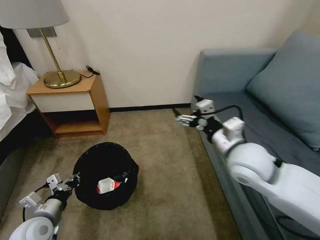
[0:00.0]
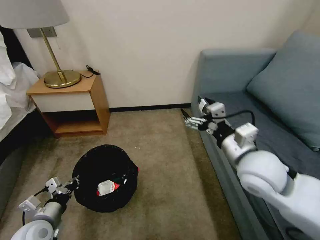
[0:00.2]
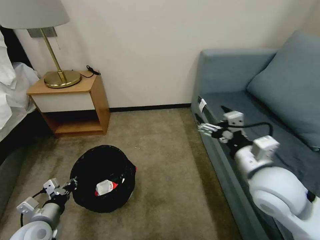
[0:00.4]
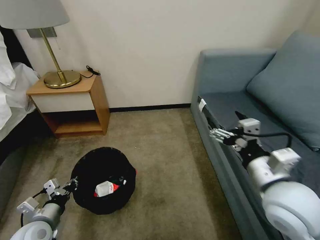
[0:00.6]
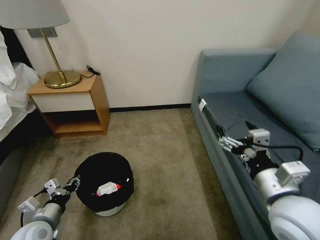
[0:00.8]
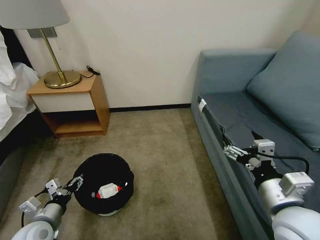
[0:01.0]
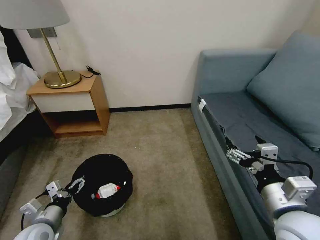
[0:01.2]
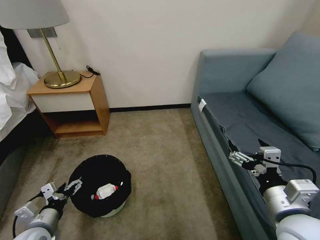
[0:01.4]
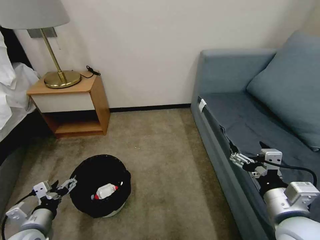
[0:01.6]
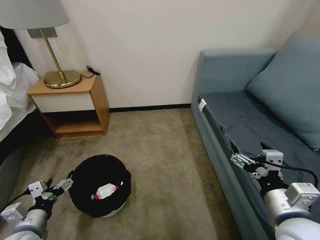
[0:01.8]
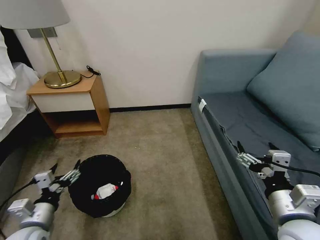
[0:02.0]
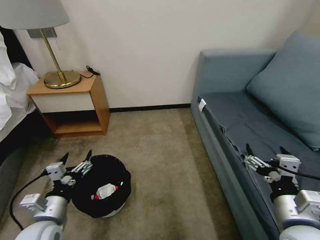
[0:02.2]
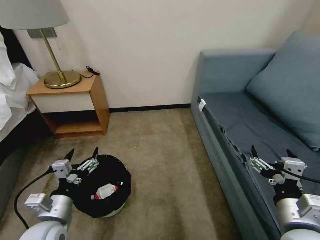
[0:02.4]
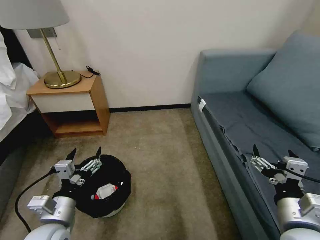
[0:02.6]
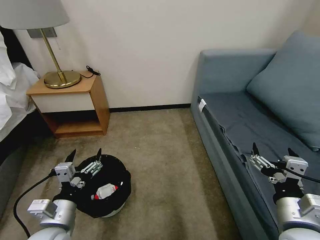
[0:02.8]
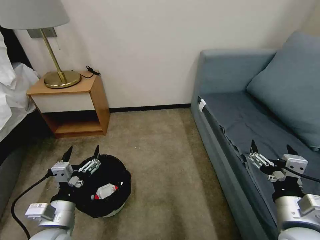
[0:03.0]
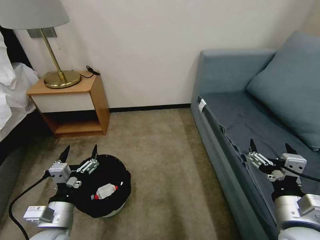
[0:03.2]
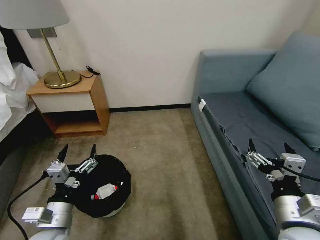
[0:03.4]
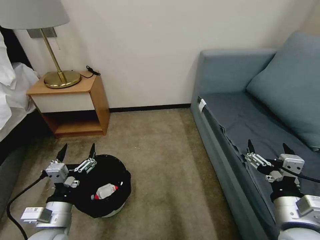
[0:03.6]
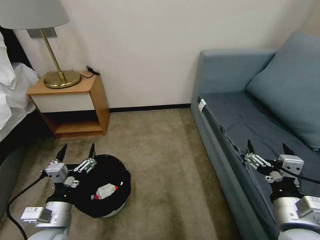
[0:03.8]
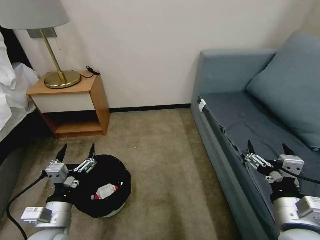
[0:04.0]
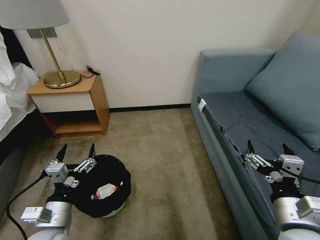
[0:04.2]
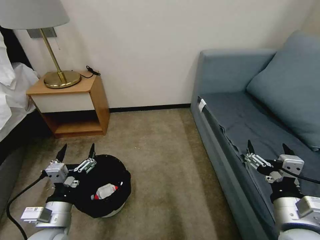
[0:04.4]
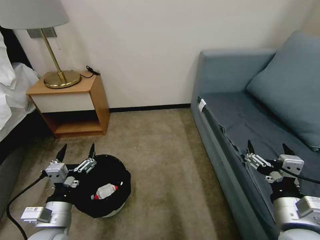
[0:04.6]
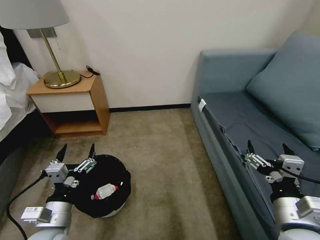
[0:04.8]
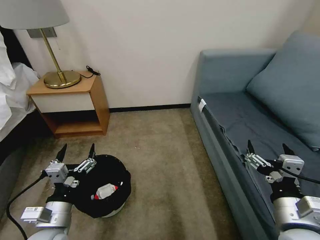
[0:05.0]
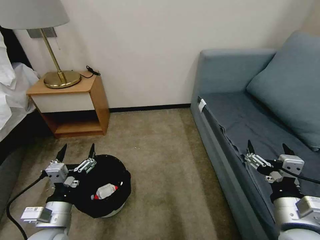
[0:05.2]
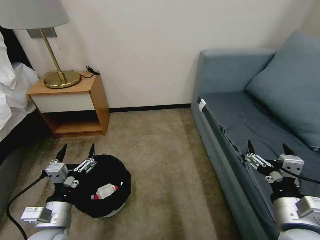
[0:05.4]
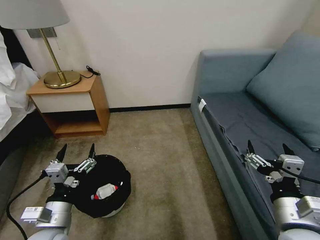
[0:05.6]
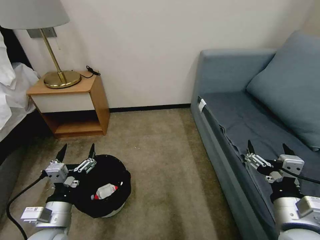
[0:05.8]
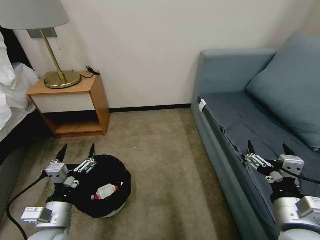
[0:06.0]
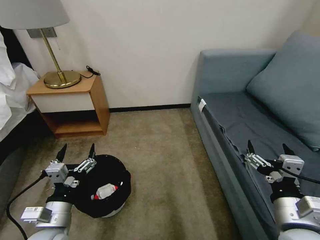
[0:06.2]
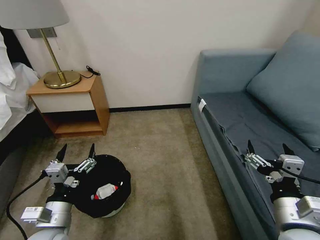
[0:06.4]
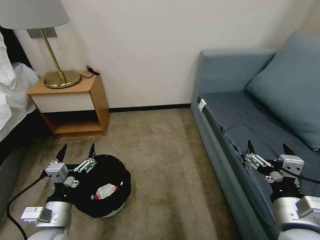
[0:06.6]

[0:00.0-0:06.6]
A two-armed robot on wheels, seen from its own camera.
Task of the whole recording: Pick up the trash bin, then pick up the garbage on the floor and place it into the trash bin.
0:00.0 to 0:01.6: The left gripper opens. The right gripper heads backward and to the right, covering about 15 cm.
0:01.6 to 0:03.2: The left gripper shifts roughly 10 cm to the right and upward.
0:03.2 to 0:06.6: The two grippers keep their place.

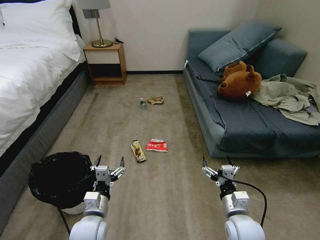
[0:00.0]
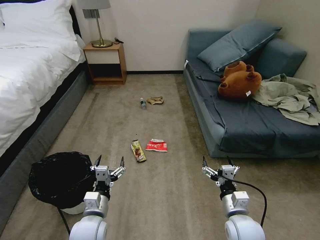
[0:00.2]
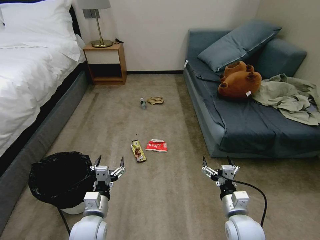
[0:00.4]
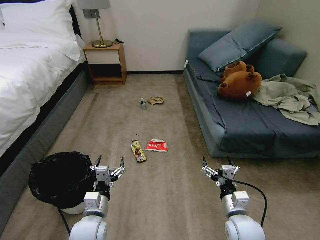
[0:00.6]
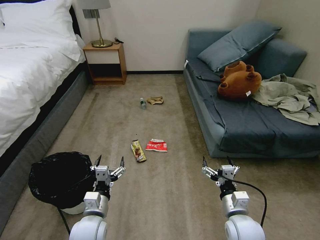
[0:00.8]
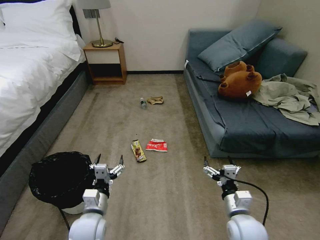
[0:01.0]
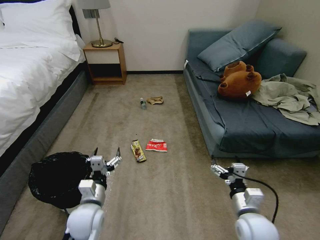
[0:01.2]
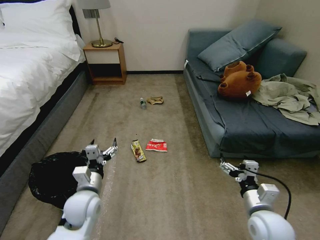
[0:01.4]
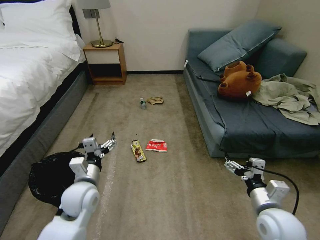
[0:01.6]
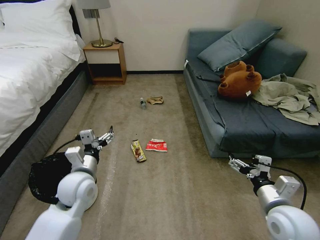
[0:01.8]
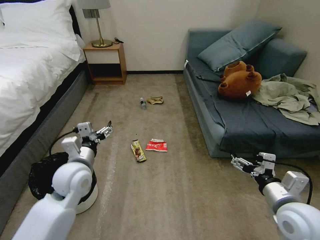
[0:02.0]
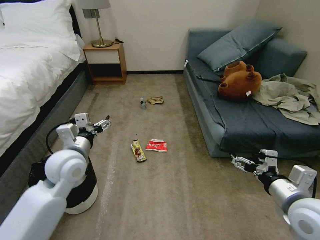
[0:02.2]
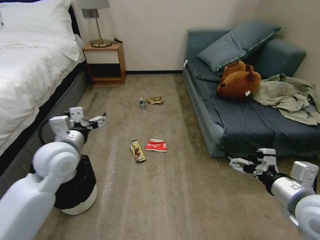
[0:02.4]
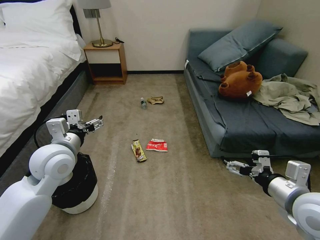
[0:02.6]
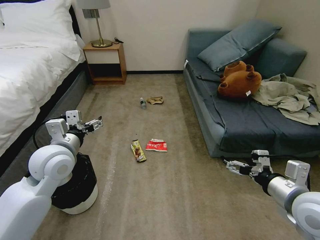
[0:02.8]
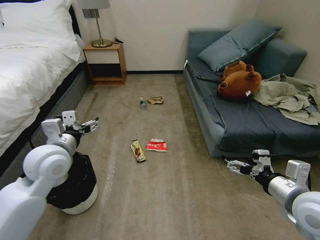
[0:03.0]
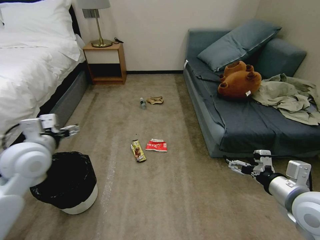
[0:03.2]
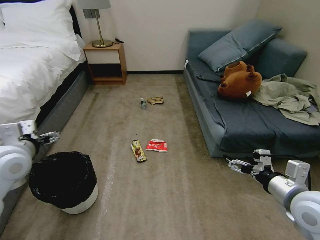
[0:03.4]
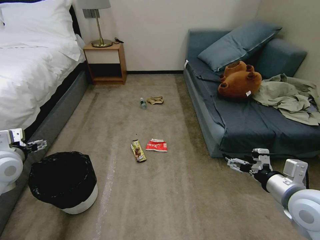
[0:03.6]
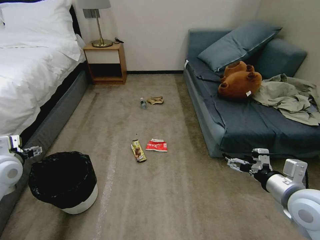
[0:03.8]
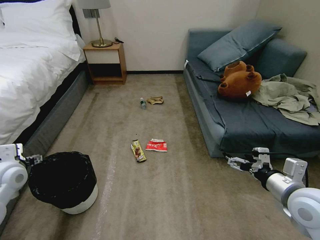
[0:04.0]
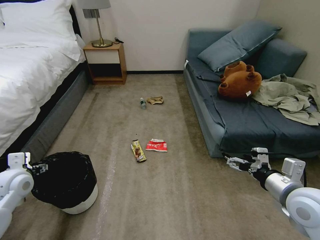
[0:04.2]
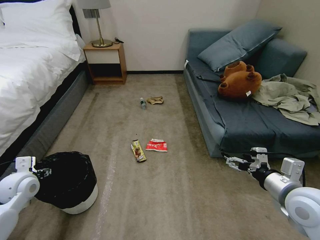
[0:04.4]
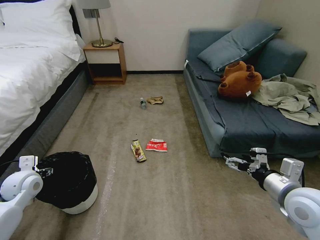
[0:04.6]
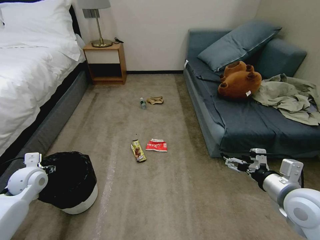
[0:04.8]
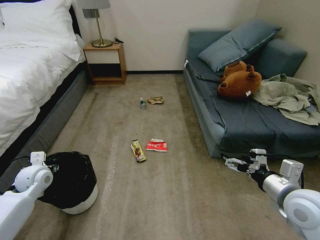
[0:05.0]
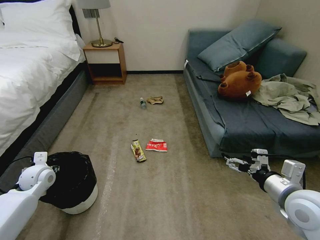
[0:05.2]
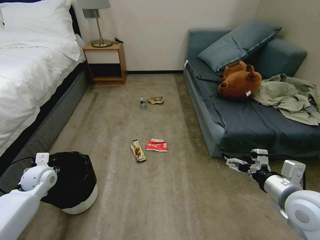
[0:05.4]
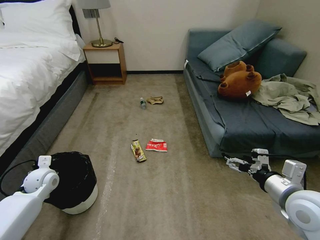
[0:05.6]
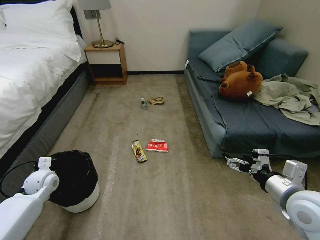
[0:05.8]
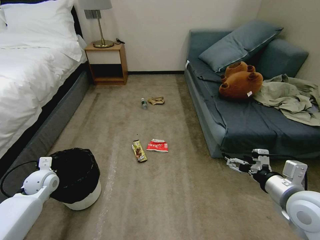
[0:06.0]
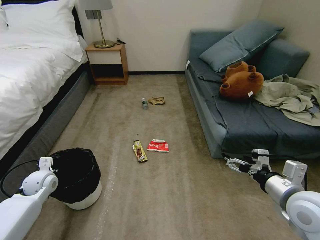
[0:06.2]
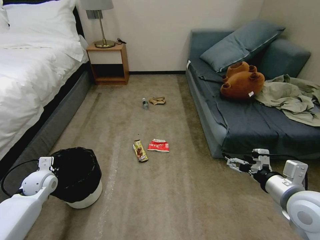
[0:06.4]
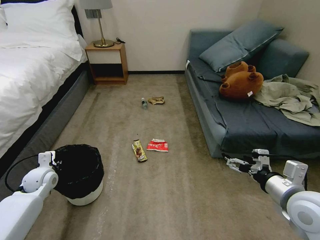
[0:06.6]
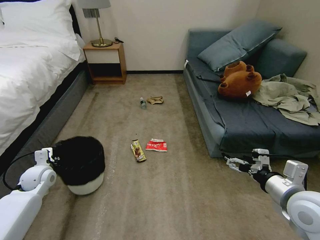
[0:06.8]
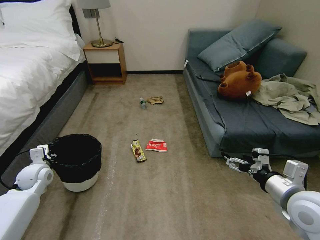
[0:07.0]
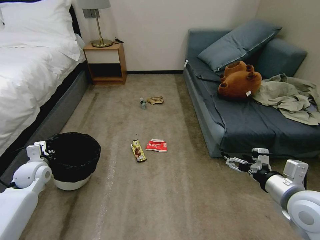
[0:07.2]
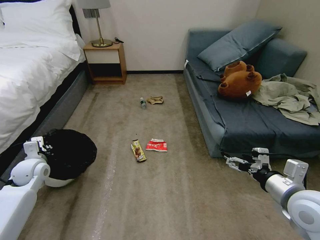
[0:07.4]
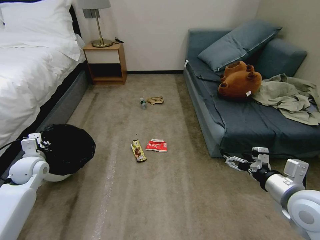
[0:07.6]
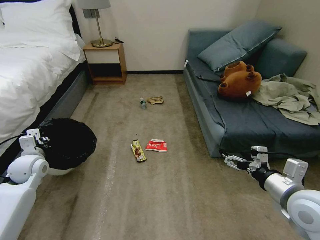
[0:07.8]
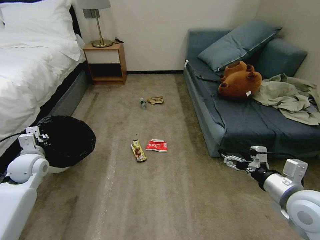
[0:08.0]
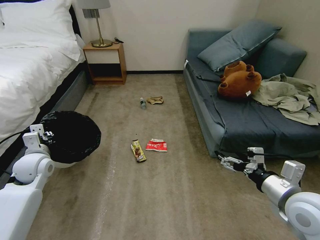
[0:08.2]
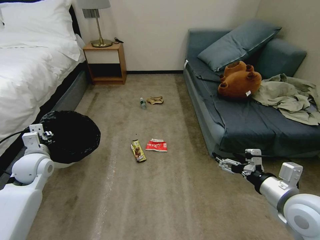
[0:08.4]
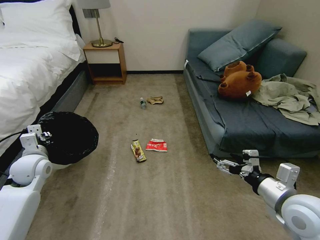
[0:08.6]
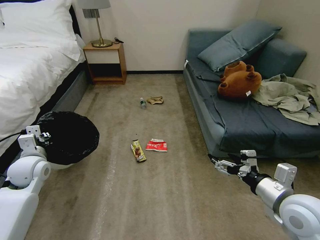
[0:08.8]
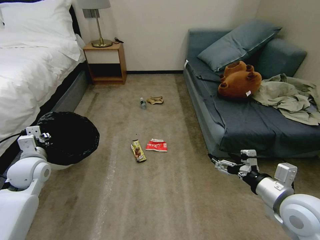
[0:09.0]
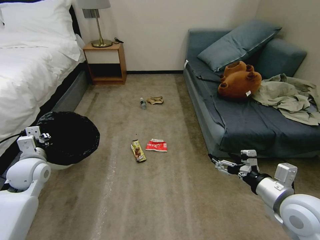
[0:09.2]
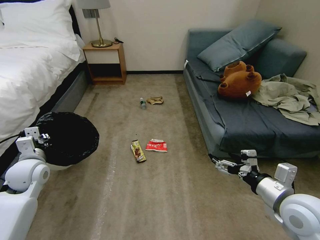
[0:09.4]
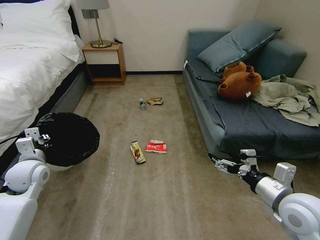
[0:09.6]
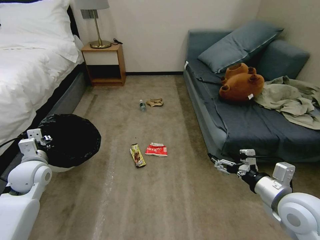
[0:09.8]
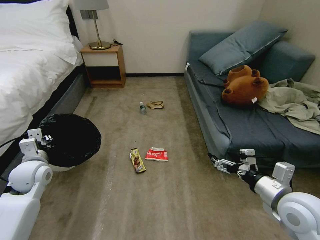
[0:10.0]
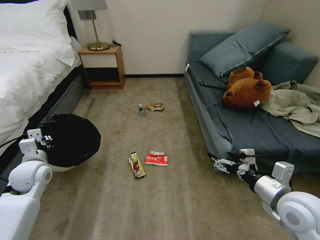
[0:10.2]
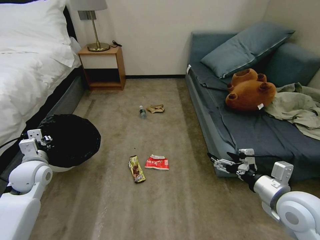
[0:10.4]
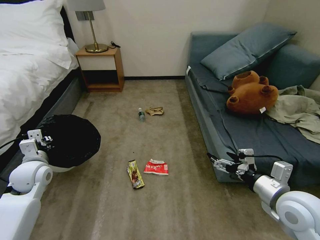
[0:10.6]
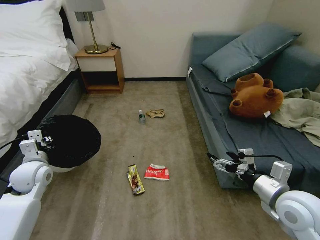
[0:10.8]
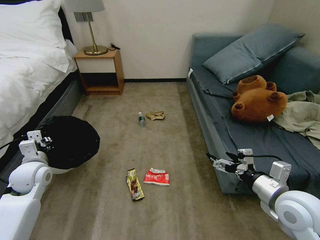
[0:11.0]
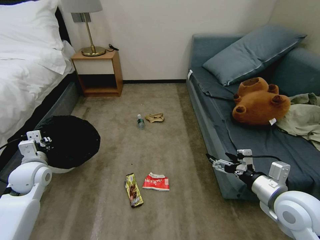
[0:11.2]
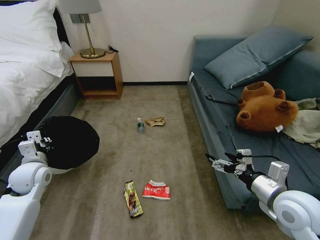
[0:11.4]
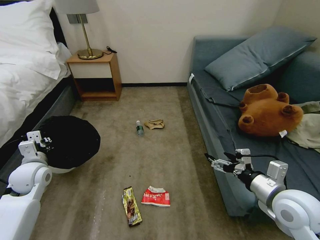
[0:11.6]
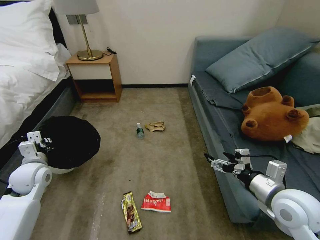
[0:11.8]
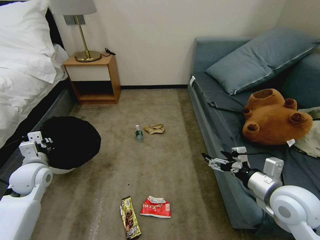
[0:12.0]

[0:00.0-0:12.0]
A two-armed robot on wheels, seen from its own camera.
Task of the whole recording: Pick up the trash bin, then pick up the garbage on the floor and place it into the trash bin.
0:01.6 to 0:03.0: Both grippers move upward, about 10 cm.
0:03.0 to 0:04.4: The left gripper heads to the left and downward, covering roughly 20 cm.
0:04.4 to 0:06.0: The left gripper travels downward by about 5 cm, and closes up.
0:06.0 to 0:07.6: The left gripper travels upward by about 5 cm, and closes.
0:07.6 to 0:09.0: The left gripper moves roughly 5 cm.

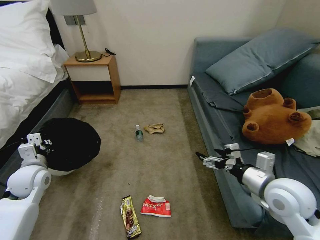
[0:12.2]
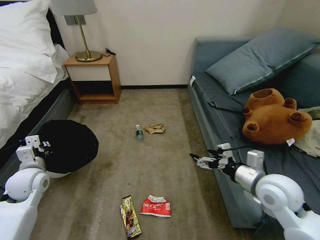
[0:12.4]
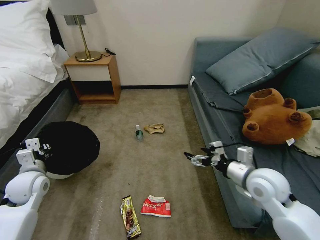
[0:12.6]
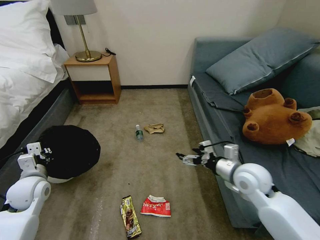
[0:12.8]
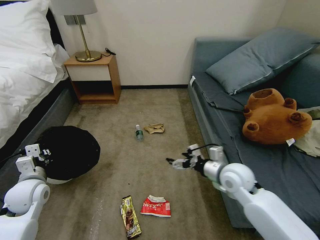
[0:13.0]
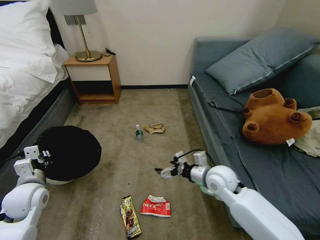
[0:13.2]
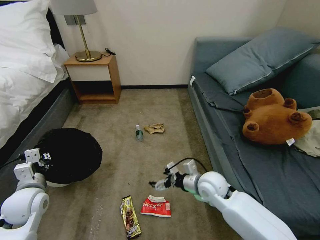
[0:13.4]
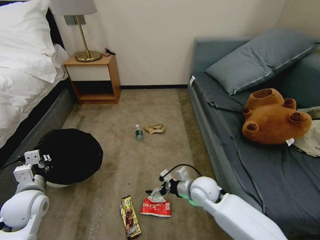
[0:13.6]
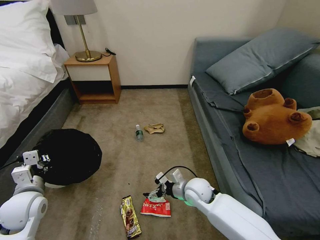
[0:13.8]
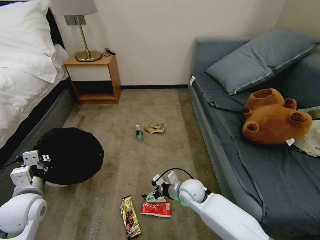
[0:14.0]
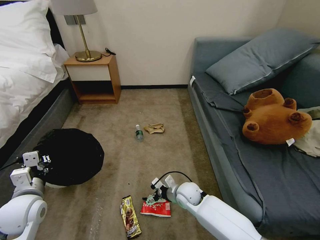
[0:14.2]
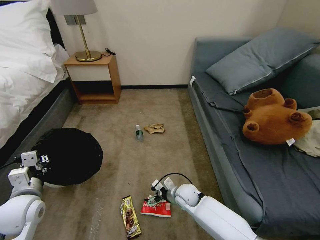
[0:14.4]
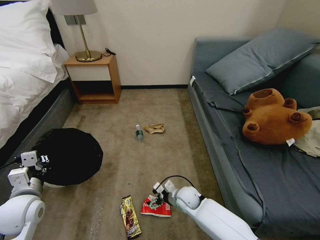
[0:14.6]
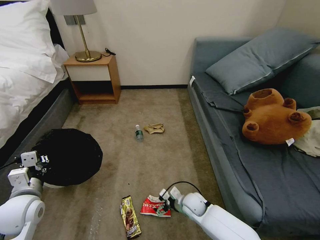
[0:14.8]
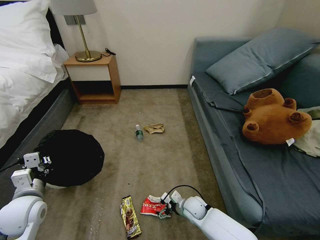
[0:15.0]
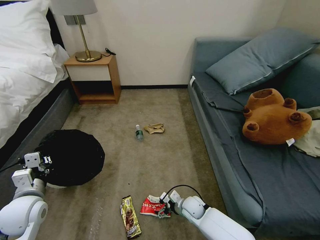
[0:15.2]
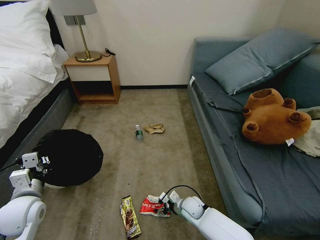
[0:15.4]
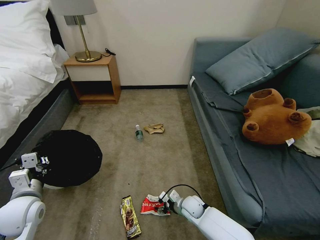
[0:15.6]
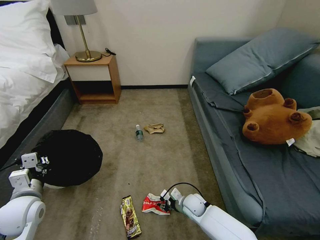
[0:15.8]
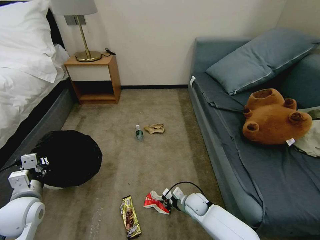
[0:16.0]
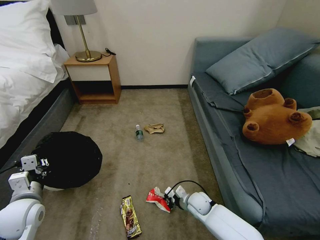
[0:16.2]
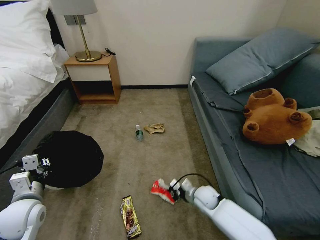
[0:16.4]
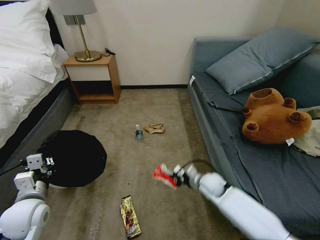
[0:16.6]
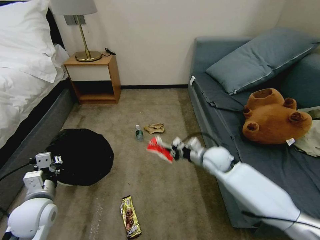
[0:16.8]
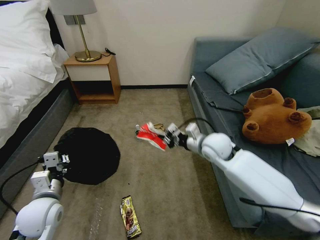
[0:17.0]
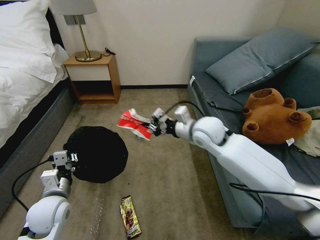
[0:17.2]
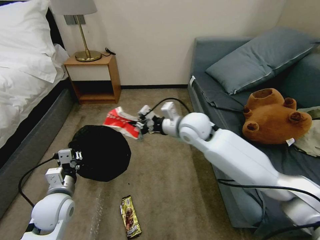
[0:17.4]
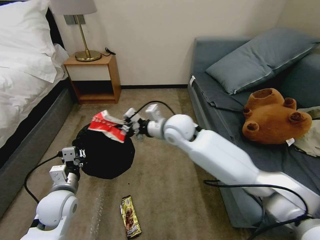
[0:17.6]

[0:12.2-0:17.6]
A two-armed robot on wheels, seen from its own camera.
Task of the whole recording: Pick up the trash bin, then pick up the garbage on the floor and place it into the trash bin.
0:12.2 to 0:13.6: The right gripper travels to the left, downward and forward by about 25 cm; the left gripper moves backward, approximately 5 cm.
0:13.6 to 0:15.0: The right gripper is displaced downward by roughly 15 cm.
0:15.0 to 0:16.2: The right gripper closes its fingers.
0:16.2 to 0:17.6: The right gripper travels upward by some 35 cm; the left gripper travels to the right by approximately 10 cm.
